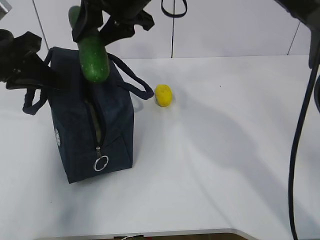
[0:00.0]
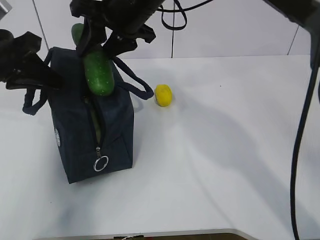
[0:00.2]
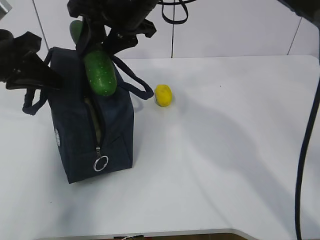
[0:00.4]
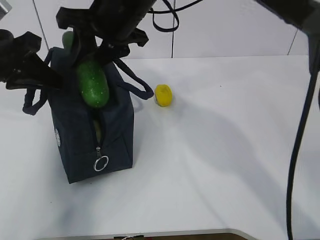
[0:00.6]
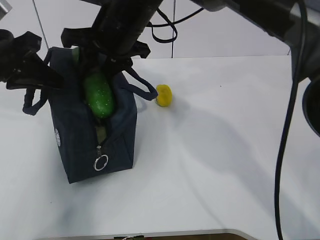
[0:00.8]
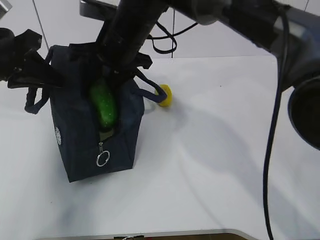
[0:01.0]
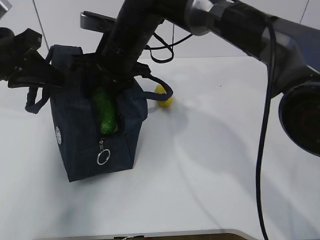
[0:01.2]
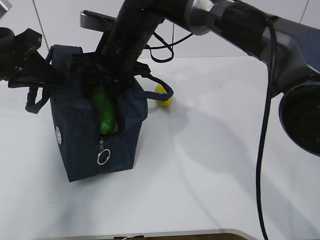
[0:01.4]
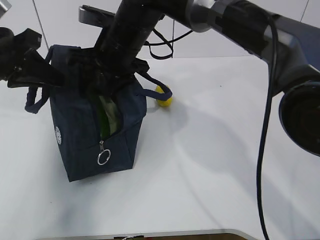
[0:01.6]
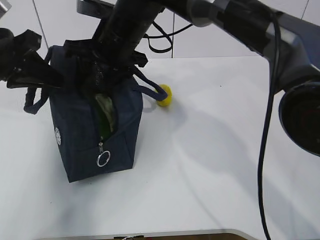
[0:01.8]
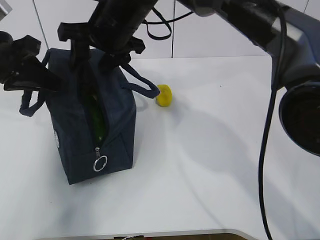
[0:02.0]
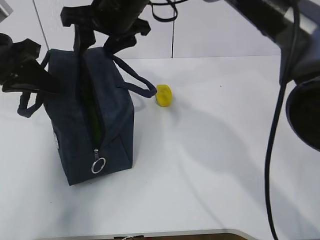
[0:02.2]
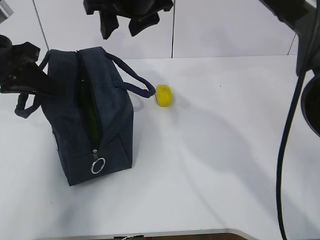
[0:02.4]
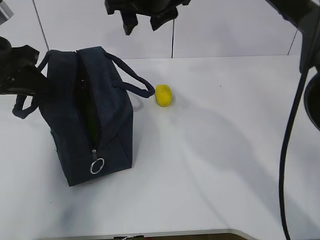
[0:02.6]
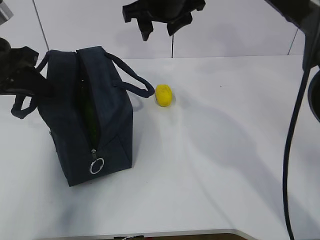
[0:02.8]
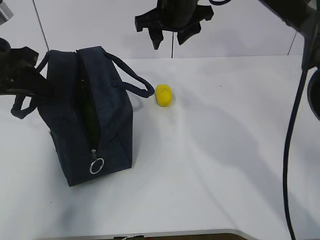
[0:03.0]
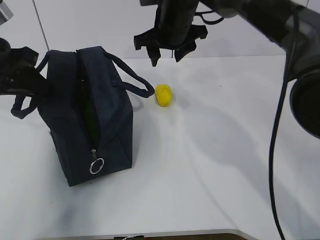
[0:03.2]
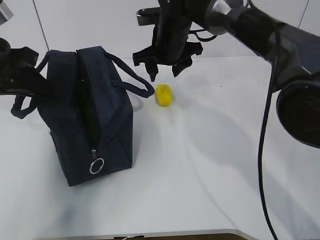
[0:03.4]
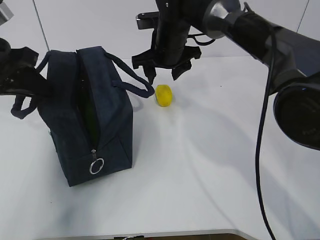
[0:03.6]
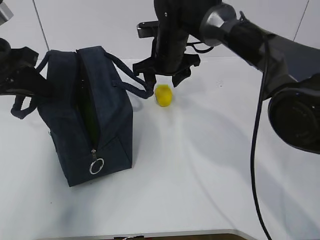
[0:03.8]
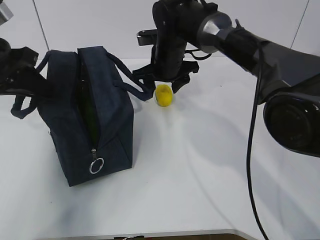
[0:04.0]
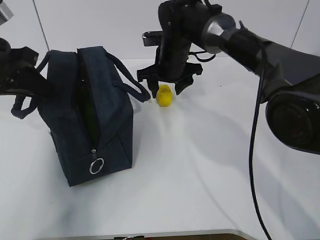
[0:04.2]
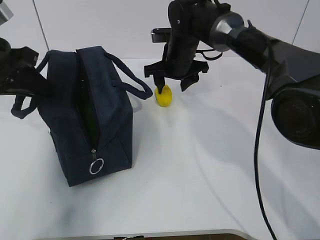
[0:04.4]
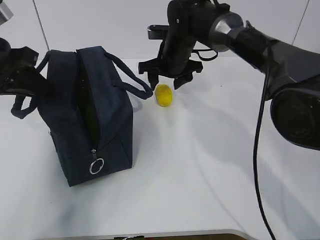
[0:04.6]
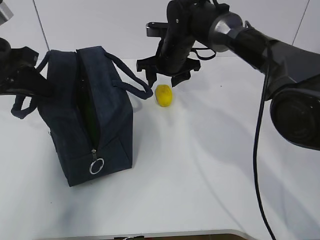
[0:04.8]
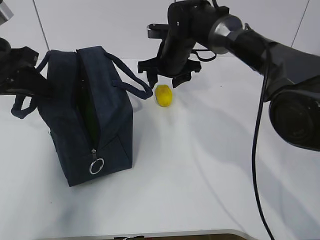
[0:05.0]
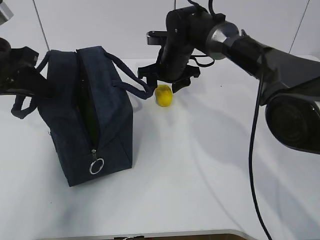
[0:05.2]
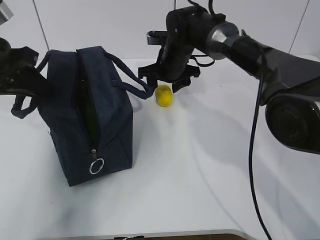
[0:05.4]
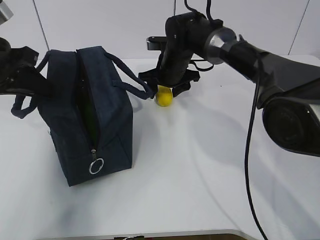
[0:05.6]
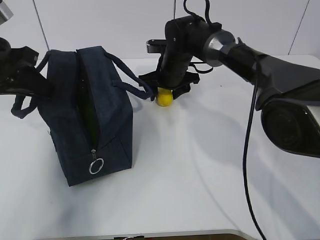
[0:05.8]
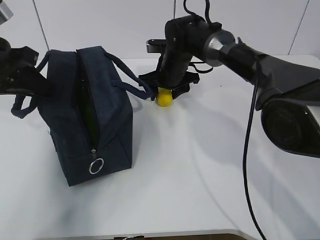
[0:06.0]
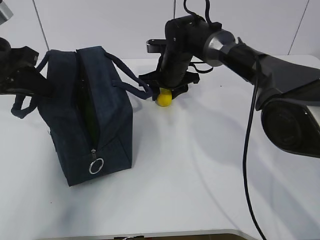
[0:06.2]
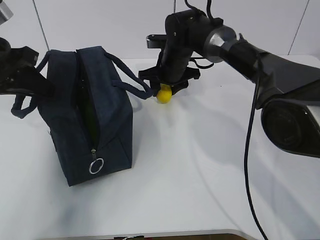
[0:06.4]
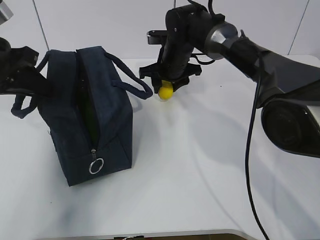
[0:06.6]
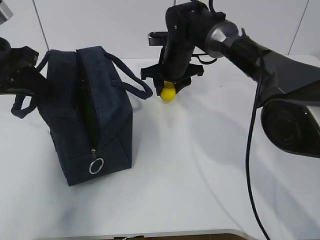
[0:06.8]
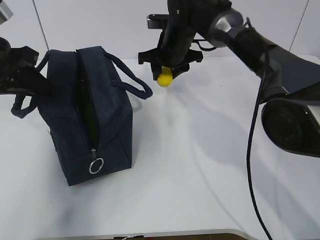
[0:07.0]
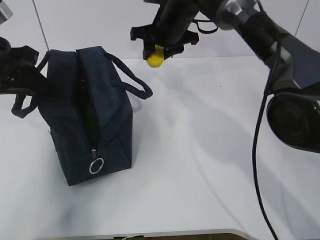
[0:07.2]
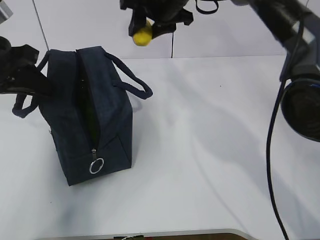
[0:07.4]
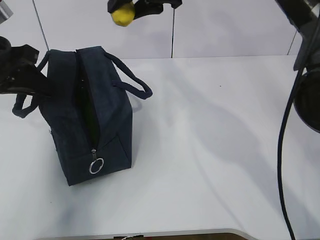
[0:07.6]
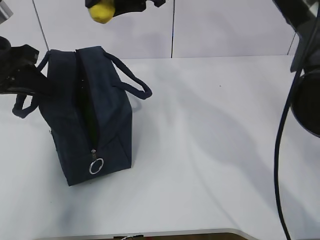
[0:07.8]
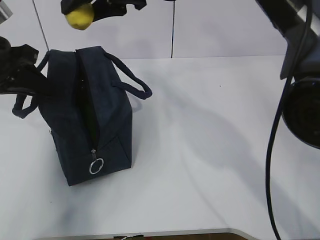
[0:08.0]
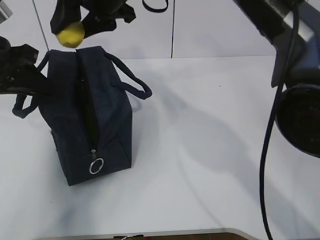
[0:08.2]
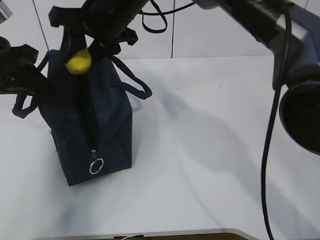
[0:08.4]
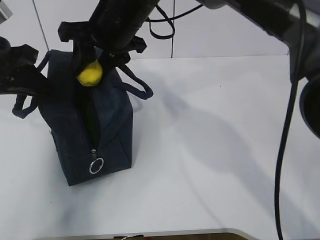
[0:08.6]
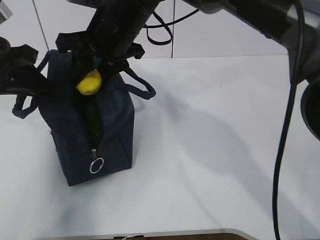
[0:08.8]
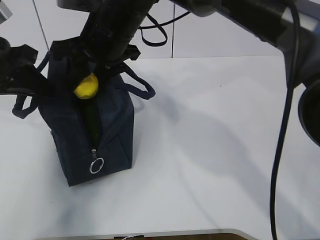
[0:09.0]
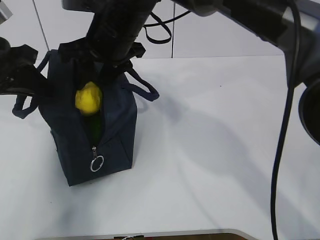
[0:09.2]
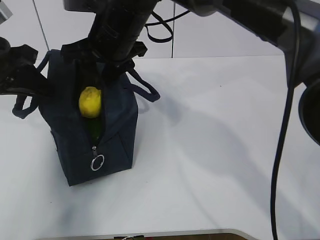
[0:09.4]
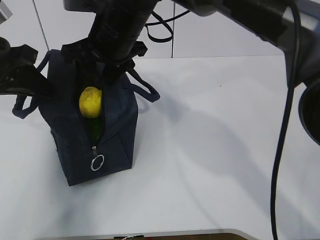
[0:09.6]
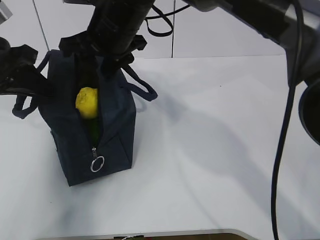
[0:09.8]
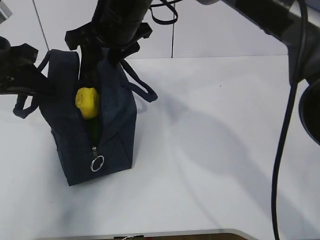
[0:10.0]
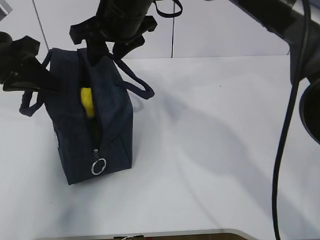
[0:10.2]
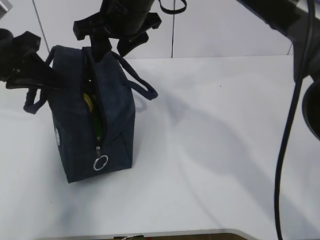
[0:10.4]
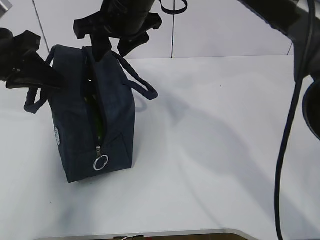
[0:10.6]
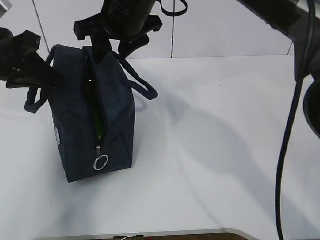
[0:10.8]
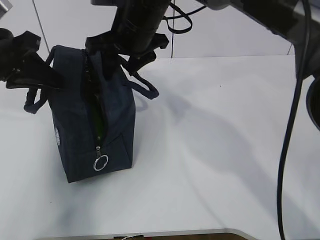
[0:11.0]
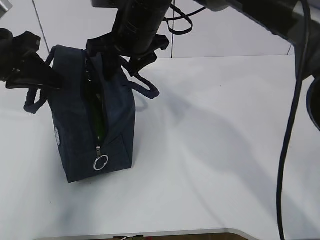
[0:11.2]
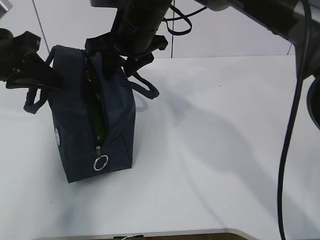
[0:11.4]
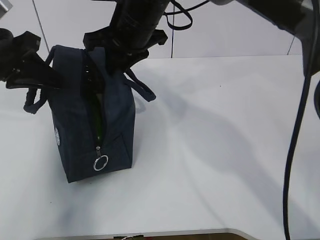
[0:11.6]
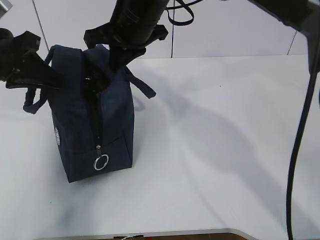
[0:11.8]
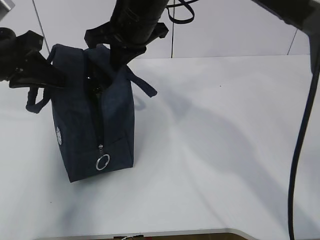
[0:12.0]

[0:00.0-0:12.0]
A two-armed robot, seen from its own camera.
Step, 0:03.4 to 0:05.2: Grab the lunch bag with your right hand.
Step, 0:05.4 to 0:07.6: Move the lunch bag to the right.
0:00.0 to 0:01.6: The right gripper moves downward, approximately 10 cm.
0:01.6 to 0:03.0: The right gripper heads to the right, covering approximately 10 cm.
0:03.0 to 0:04.4: The right gripper travels downward by roughly 10 cm.
0:04.4 to 0:06.0: The grippers move only a little.
0:06.0 to 0:07.6: The right gripper shifts about 20 cm upward.
0:07.6 to 0:09.0: The right gripper travels to the left, backward and downward by roughly 10 cm.
0:09.0 to 0:10.4: The grippers move only a little.
0:10.4 to 0:12.0: The right gripper closes its fingers.

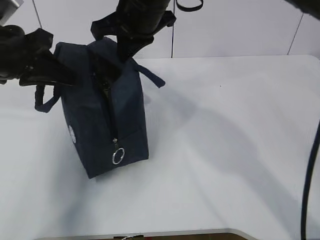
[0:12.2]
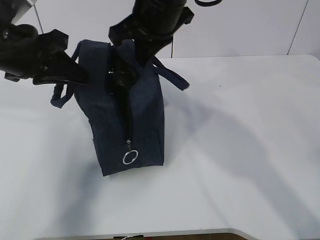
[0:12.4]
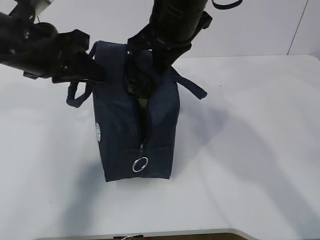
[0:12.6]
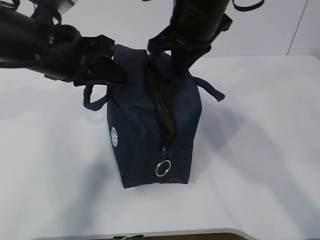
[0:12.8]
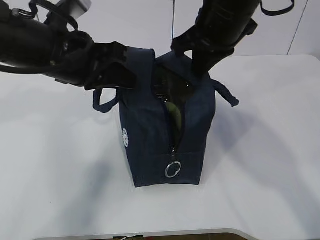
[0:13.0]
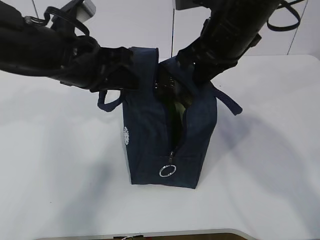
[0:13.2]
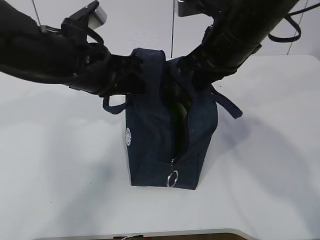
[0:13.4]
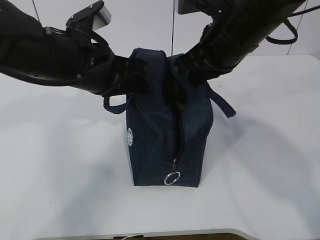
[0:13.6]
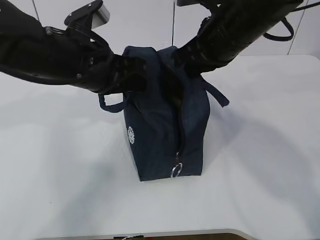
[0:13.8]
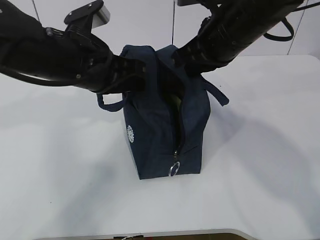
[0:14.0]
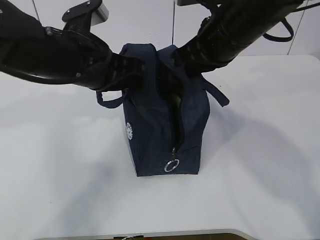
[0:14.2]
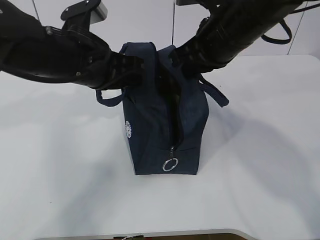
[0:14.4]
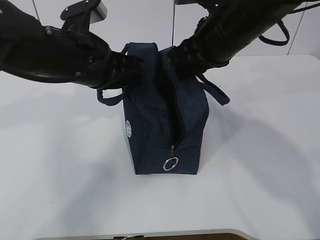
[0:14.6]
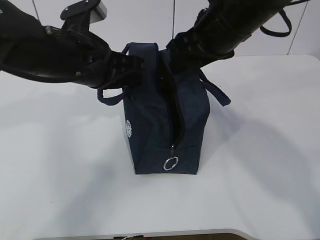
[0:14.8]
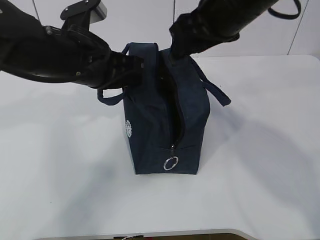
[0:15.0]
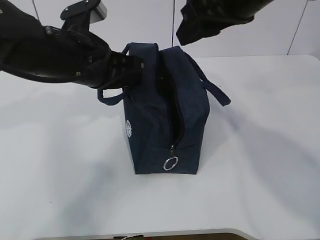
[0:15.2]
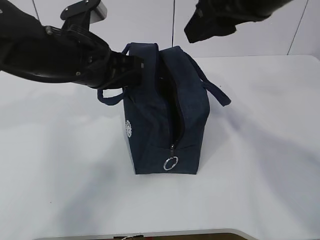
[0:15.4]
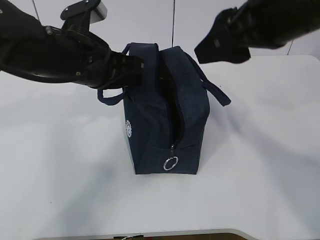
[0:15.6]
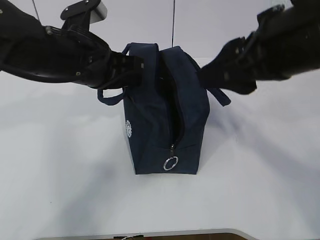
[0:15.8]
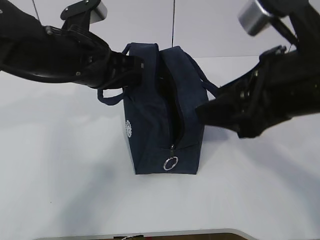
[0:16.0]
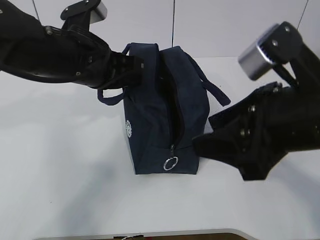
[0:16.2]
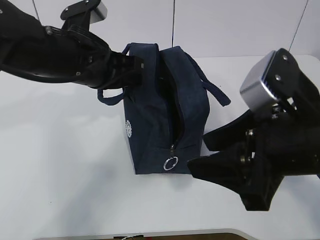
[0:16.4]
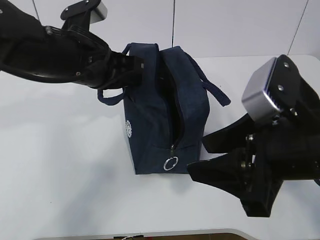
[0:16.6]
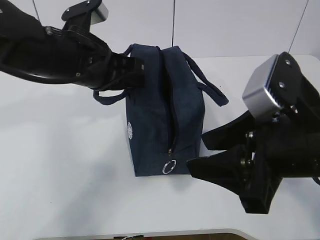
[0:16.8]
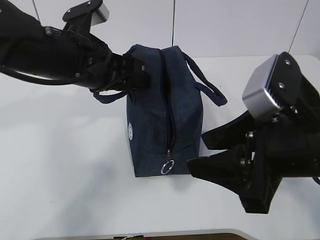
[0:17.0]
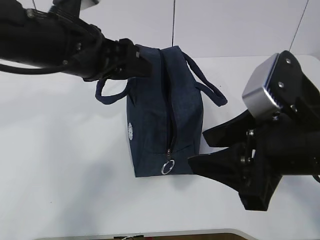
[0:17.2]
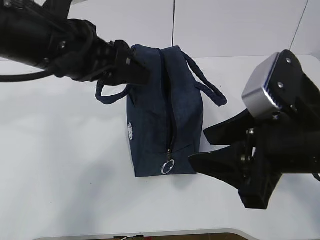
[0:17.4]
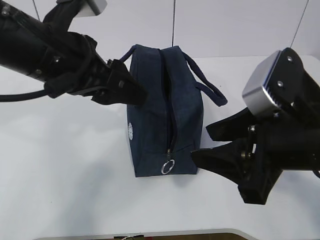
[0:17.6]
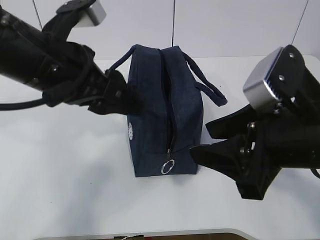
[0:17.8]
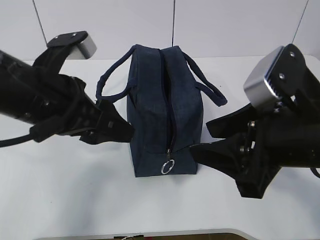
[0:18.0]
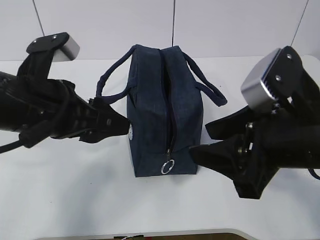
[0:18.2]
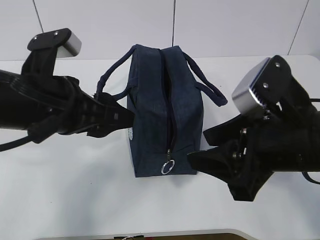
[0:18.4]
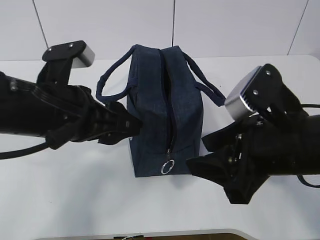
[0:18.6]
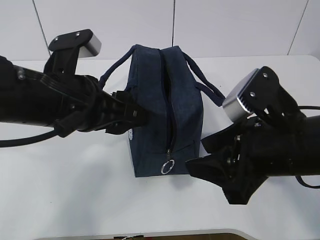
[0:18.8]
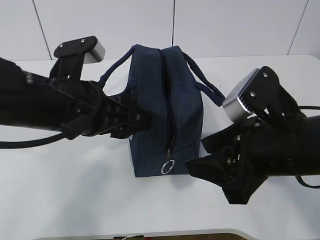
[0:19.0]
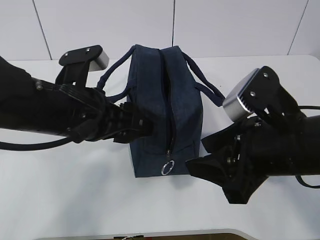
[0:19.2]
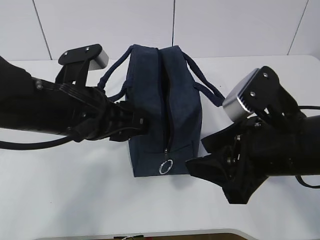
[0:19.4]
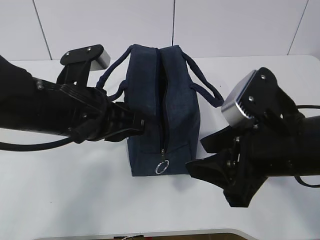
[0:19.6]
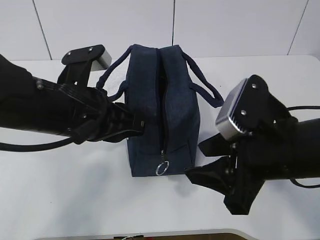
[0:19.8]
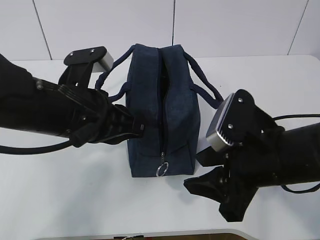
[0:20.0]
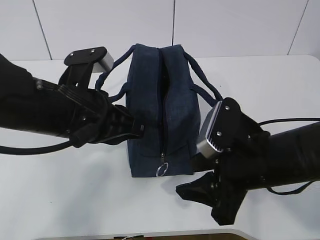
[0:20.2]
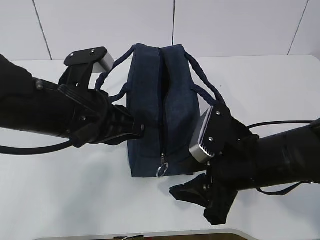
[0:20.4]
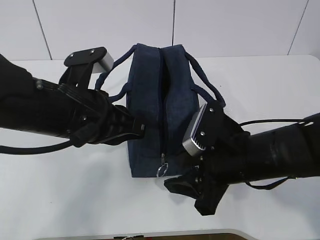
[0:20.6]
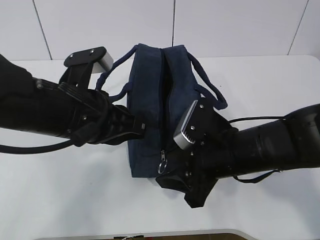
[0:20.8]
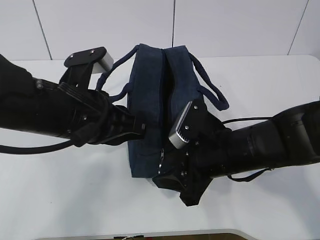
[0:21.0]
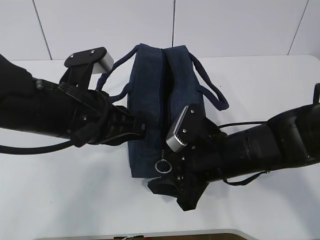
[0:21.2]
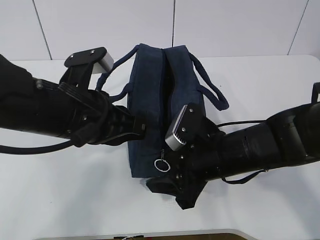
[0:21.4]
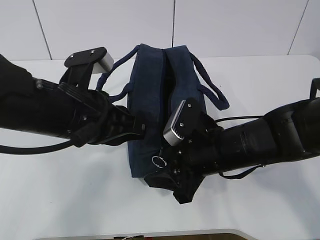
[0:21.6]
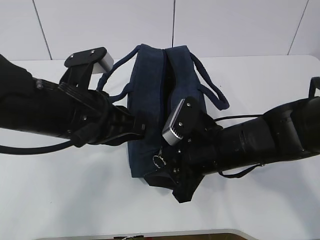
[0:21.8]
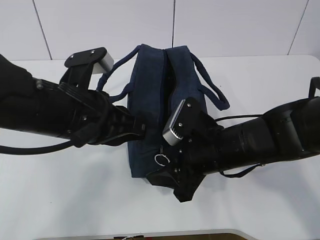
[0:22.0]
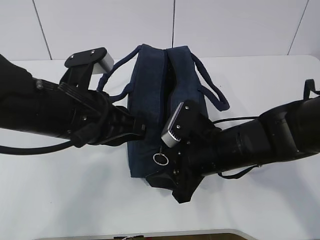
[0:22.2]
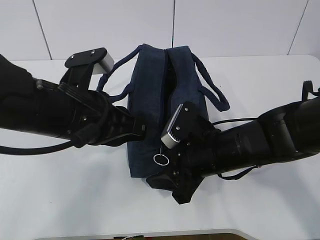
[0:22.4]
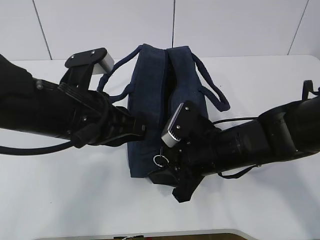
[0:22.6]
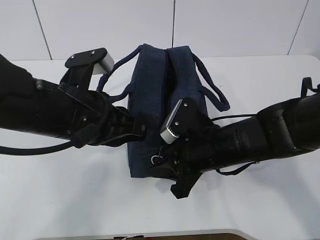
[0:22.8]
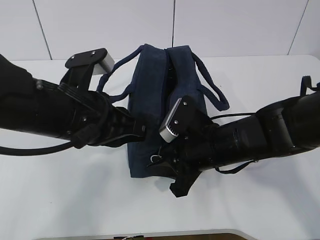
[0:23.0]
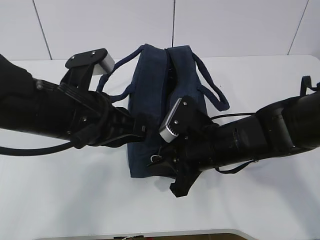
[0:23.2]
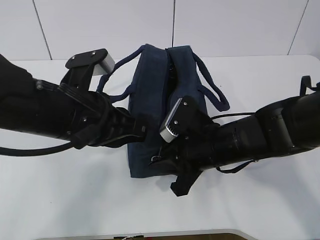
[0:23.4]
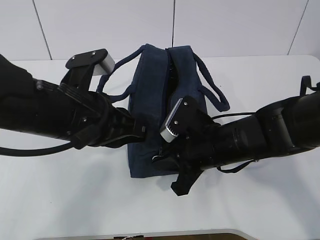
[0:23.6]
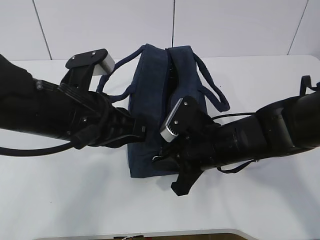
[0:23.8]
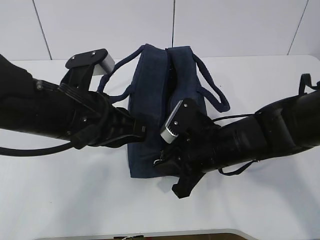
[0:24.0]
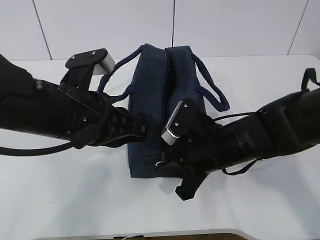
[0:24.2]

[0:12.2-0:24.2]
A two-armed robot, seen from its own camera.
0:12.2 to 0:13.8: The right gripper goes some 10 cm to the right and backward. The left gripper shifts approximately 10 cm to the right.
0:13.8 to 0:15.2: The right gripper shifts some 5 cm upward, and opens.
0:15.2 to 0:16.6: The right gripper is displaced backward and downward by roughly 20 cm.
0:16.6 to 0:18.2: The left gripper is displaced backward by approximately 10 cm, and opens up.
0:18.2 to 0:19.8: The left gripper closes.
0:19.8 to 0:21.2: The right gripper moves downward and forward, some 10 cm.
0:21.2 to 0:22.6: The grippers move only a little.
0:22.6 to 0:24.2: The right gripper closes.
